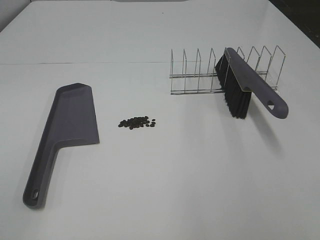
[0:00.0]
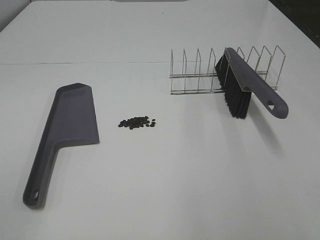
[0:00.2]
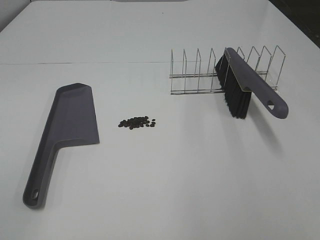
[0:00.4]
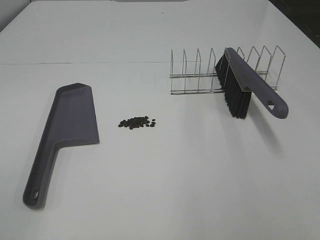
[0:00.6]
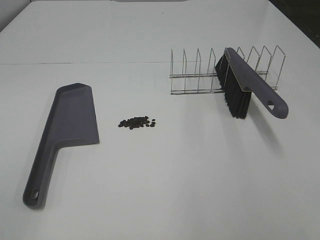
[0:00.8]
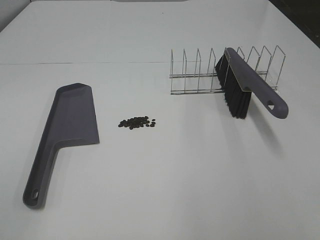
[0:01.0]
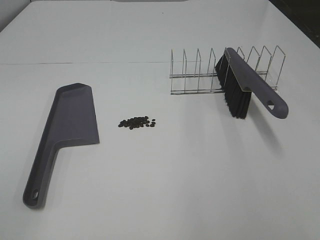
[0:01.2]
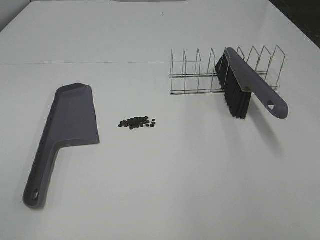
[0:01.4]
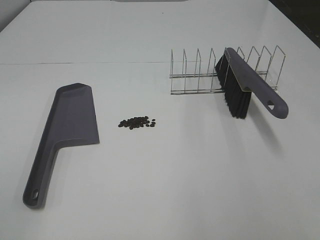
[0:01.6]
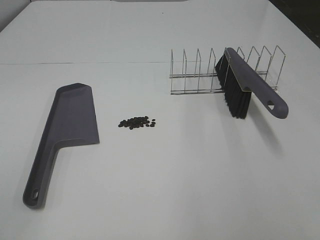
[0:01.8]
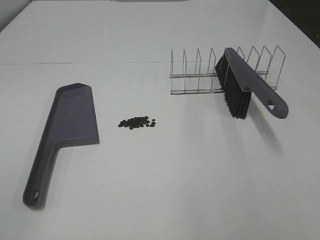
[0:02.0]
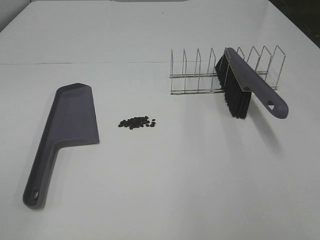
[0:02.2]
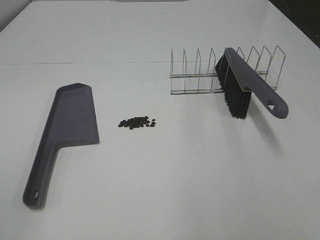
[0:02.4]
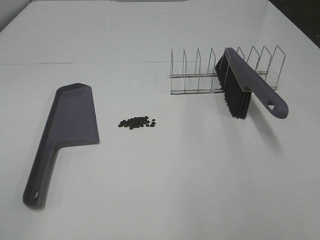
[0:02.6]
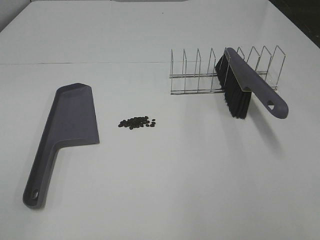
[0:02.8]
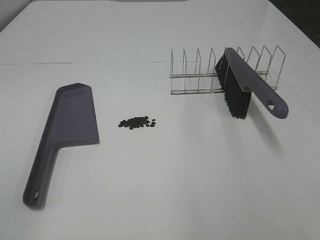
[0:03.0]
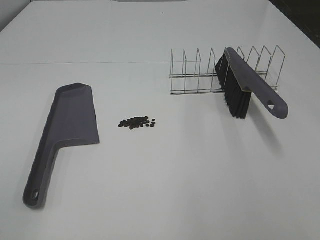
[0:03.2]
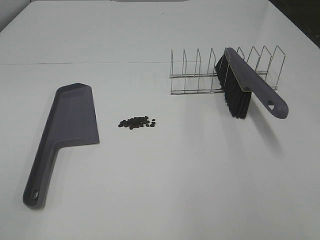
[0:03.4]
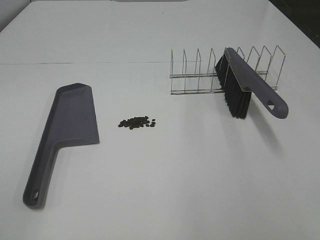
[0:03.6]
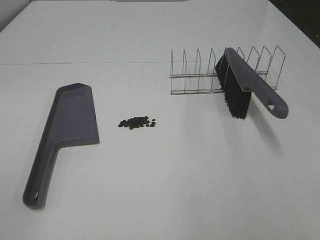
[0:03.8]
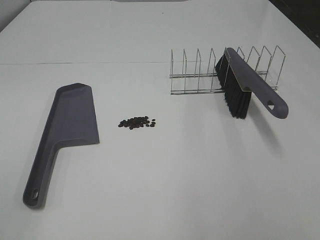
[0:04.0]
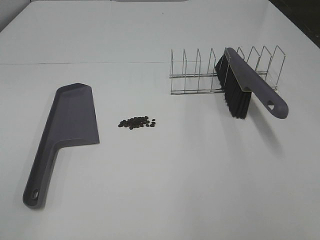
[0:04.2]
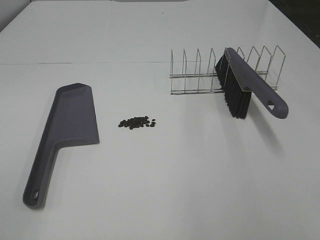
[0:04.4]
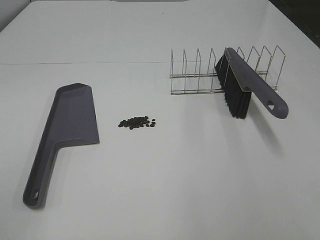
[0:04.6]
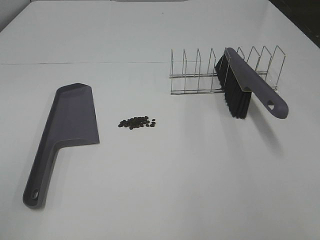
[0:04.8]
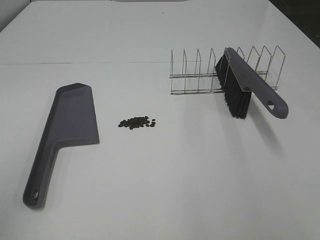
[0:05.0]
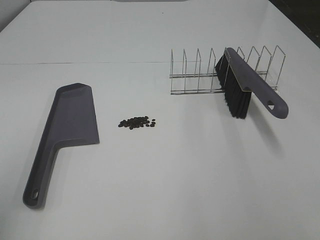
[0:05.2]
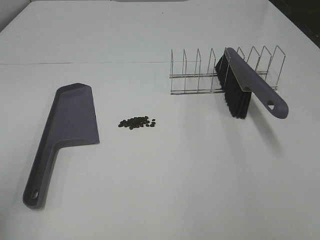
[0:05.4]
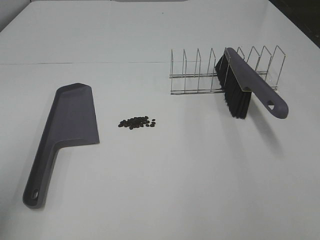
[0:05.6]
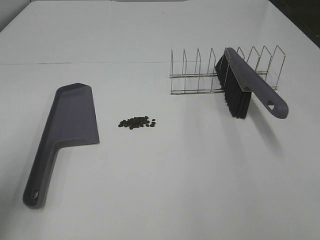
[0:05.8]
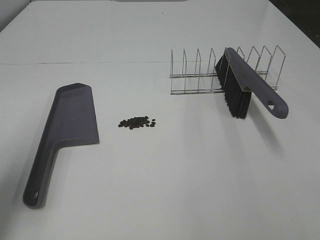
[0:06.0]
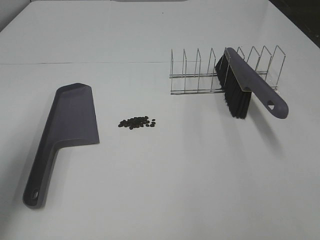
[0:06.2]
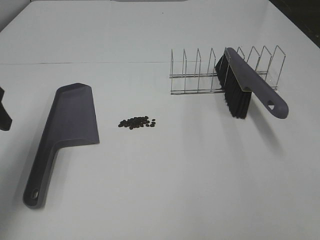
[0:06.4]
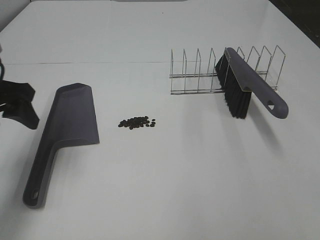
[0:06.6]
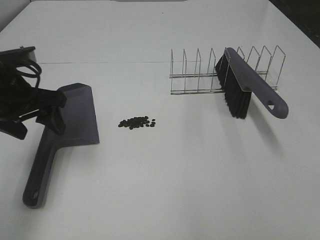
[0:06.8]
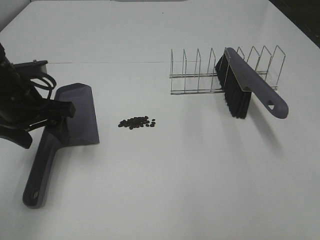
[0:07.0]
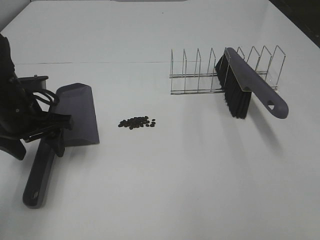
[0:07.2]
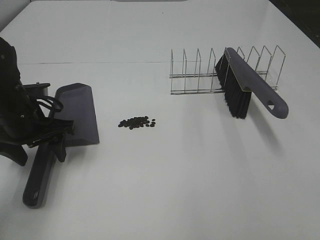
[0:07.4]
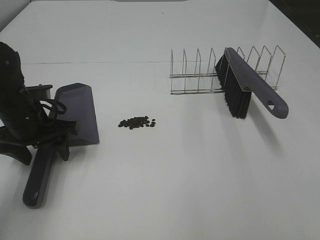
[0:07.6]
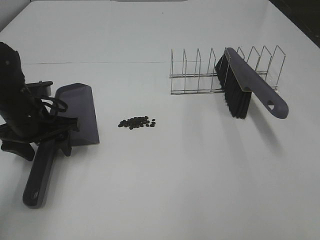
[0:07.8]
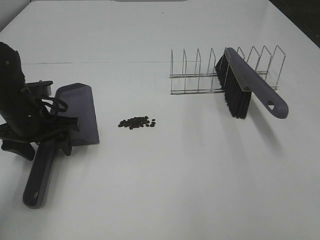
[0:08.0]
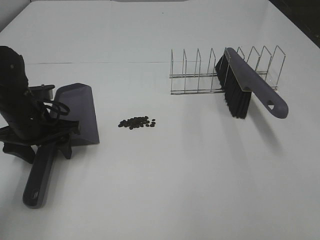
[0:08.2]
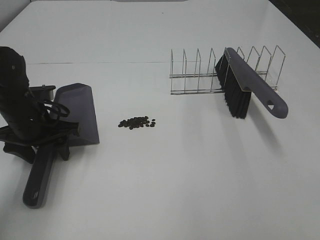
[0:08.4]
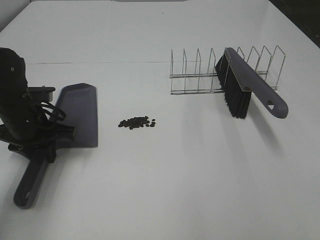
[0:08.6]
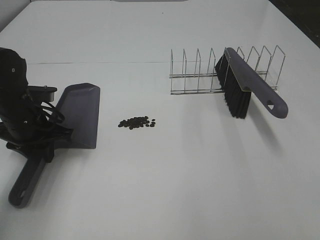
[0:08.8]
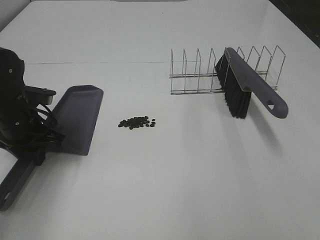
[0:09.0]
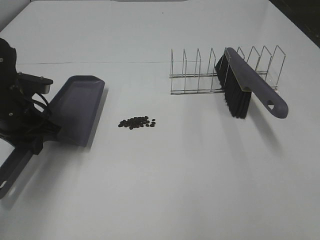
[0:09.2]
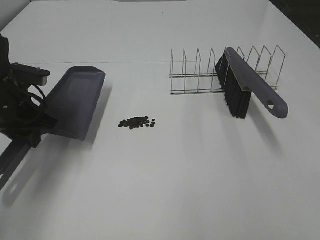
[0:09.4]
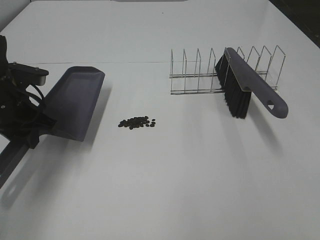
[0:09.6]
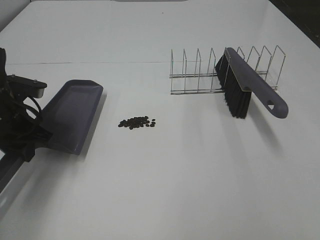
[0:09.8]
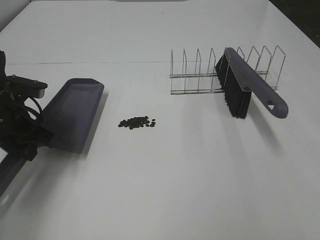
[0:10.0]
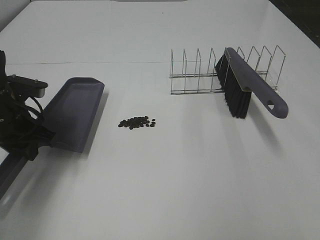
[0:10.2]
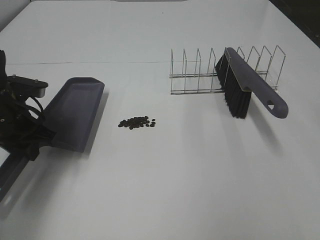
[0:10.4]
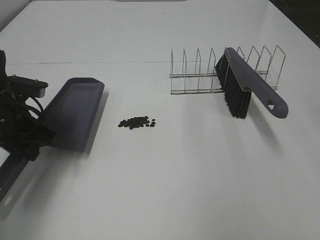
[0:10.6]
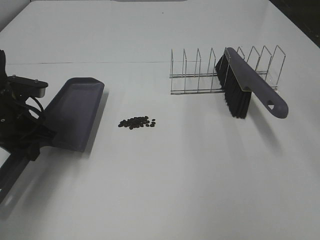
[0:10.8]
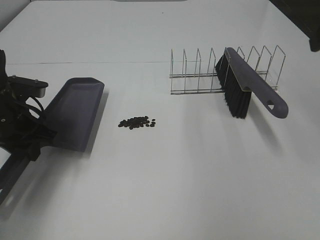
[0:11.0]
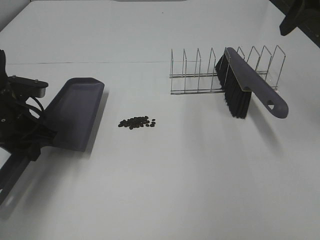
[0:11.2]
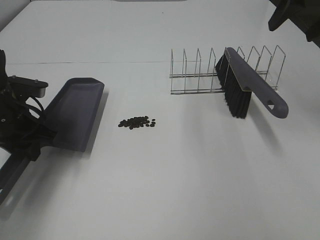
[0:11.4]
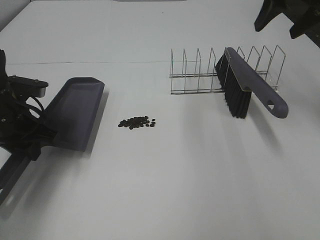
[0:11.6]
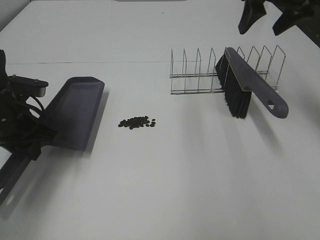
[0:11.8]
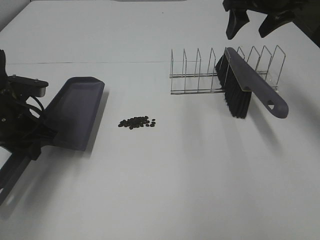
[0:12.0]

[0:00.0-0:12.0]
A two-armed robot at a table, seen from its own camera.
Task of the whole recording: Sweep Coffee Bean.
Step, 0:00.0 to 0:08.8: Left hand: grab the dustpan.
0:00.0 to 0:04.4: Both grippers stay about where they are.
0:04.4 to 0:06.0: The left gripper goes about 20 cm forward.
0:06.0 to 0:07.6: The left gripper heads downward, forward and to the right, covering approximately 20 cm.
0:07.6 to 0:09.0: The left gripper closes.
0:10.4 to 0:12.0: The right gripper heads forward, covering about 30 cm.

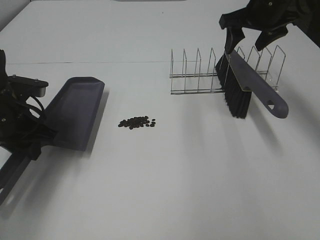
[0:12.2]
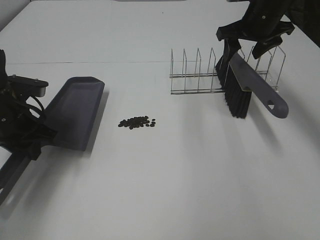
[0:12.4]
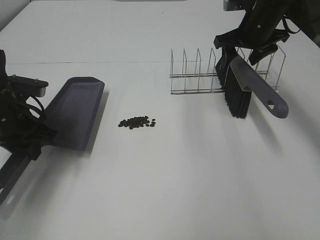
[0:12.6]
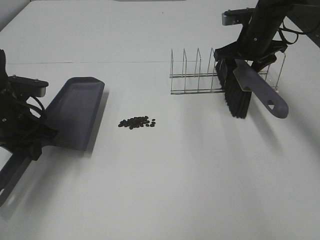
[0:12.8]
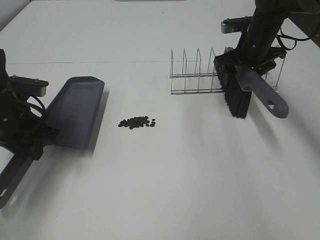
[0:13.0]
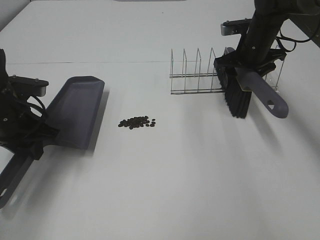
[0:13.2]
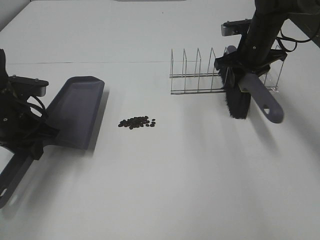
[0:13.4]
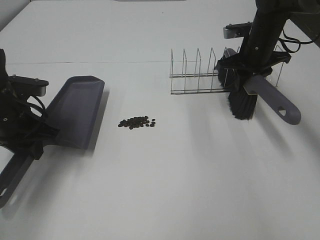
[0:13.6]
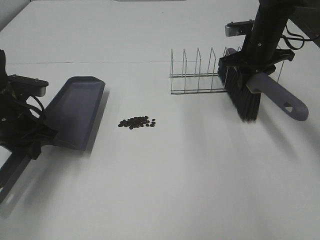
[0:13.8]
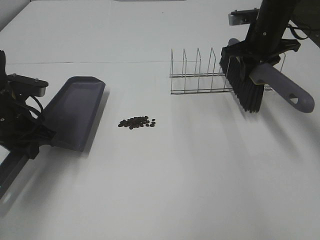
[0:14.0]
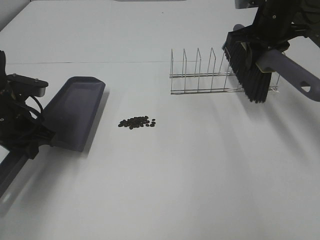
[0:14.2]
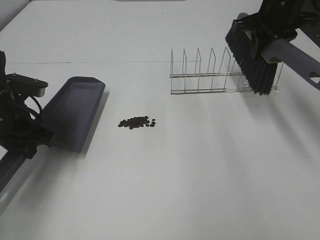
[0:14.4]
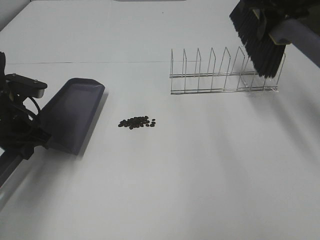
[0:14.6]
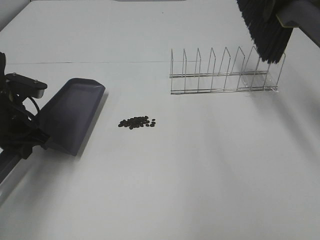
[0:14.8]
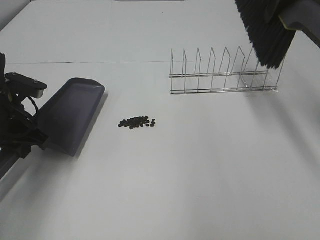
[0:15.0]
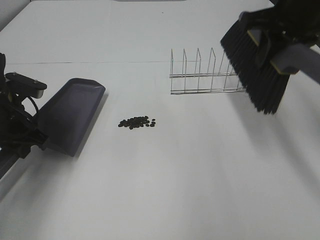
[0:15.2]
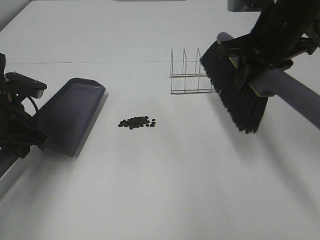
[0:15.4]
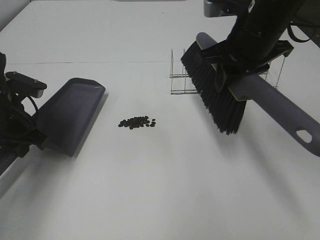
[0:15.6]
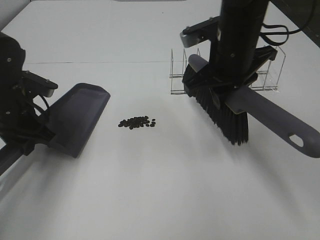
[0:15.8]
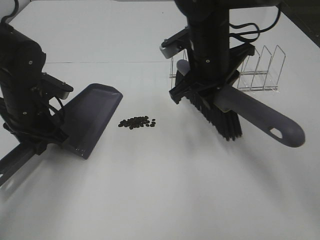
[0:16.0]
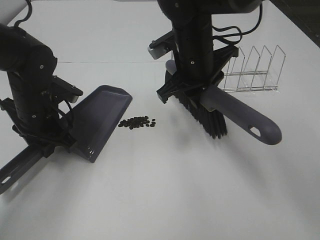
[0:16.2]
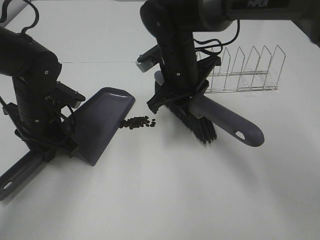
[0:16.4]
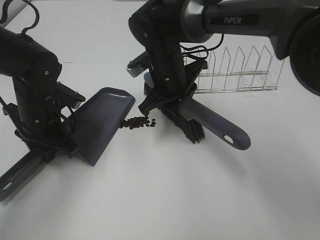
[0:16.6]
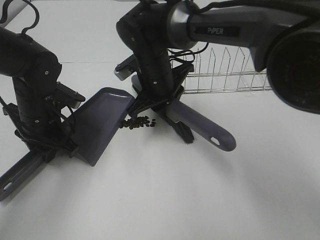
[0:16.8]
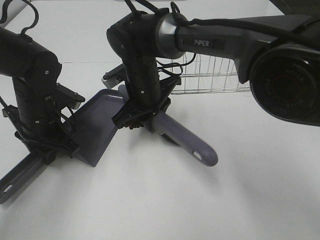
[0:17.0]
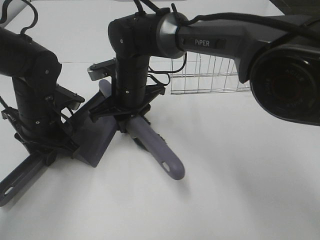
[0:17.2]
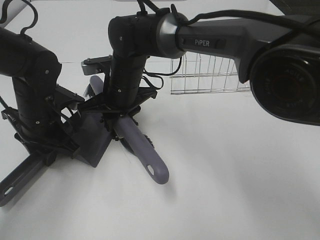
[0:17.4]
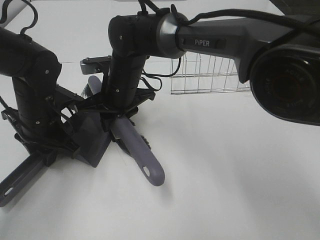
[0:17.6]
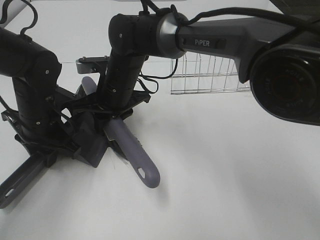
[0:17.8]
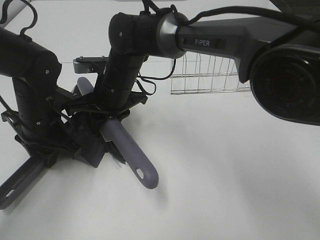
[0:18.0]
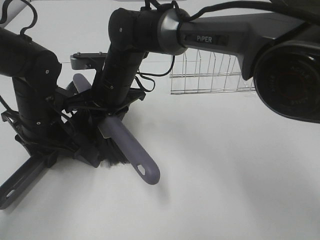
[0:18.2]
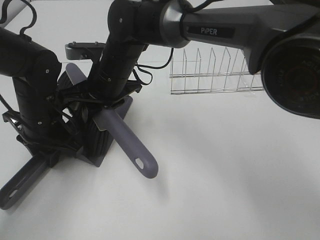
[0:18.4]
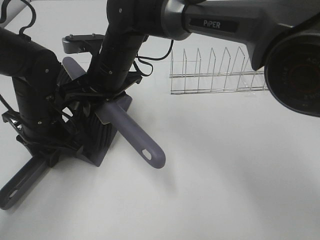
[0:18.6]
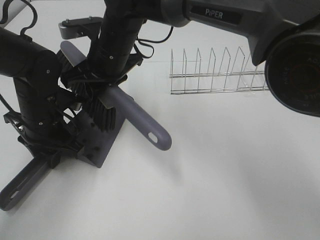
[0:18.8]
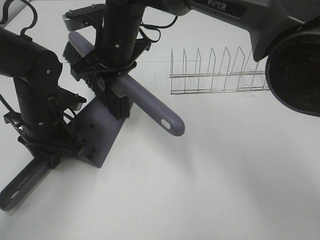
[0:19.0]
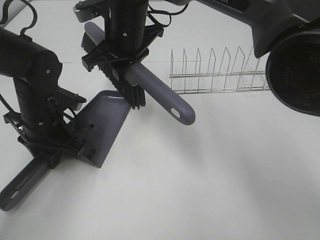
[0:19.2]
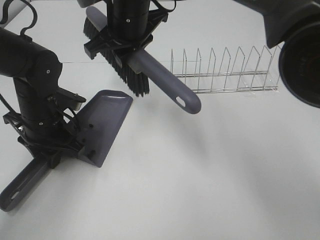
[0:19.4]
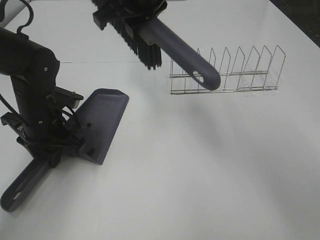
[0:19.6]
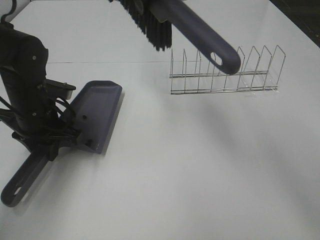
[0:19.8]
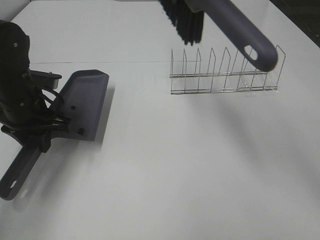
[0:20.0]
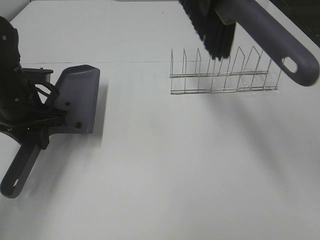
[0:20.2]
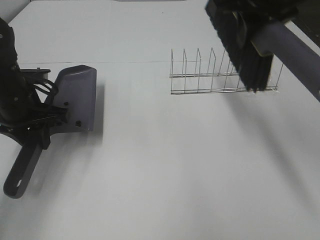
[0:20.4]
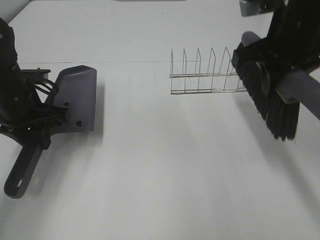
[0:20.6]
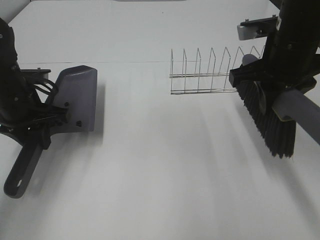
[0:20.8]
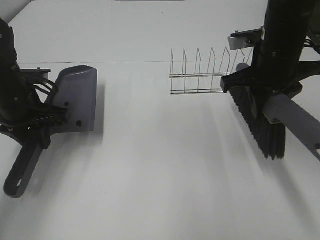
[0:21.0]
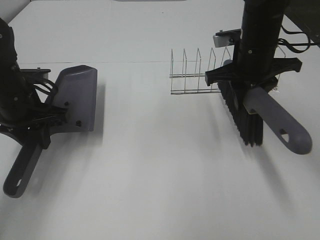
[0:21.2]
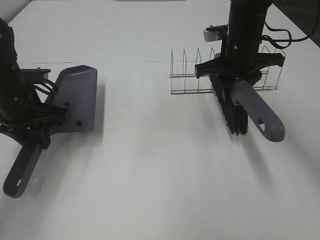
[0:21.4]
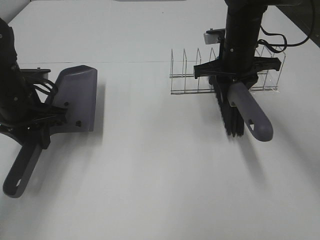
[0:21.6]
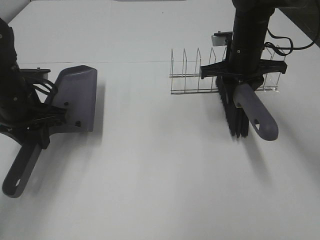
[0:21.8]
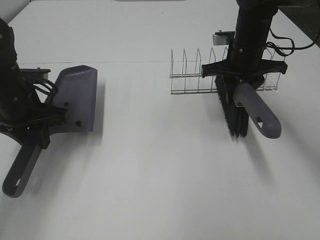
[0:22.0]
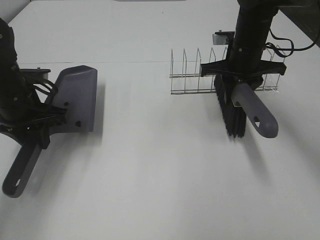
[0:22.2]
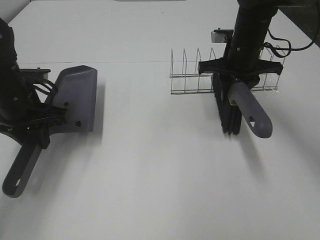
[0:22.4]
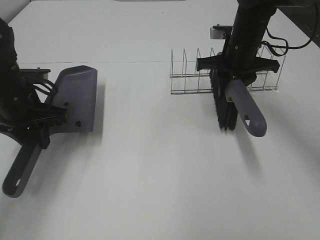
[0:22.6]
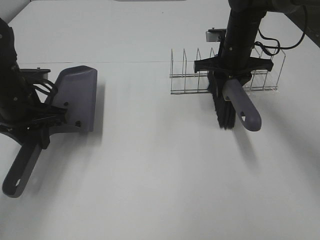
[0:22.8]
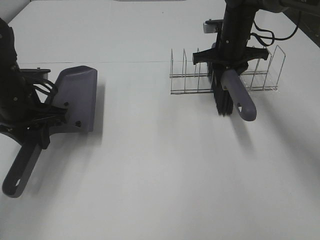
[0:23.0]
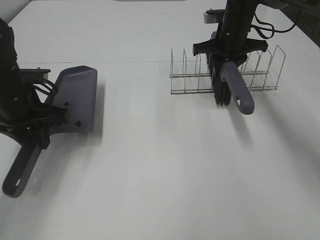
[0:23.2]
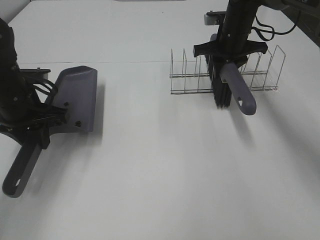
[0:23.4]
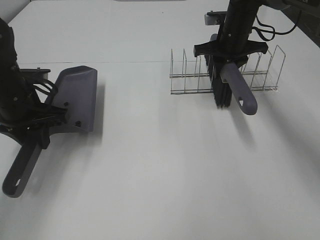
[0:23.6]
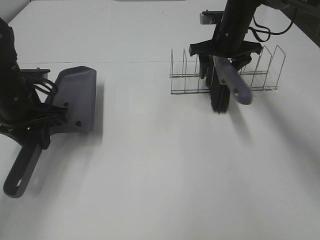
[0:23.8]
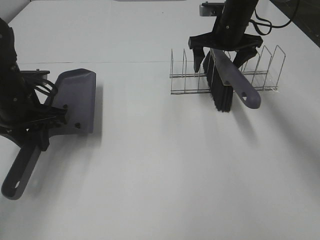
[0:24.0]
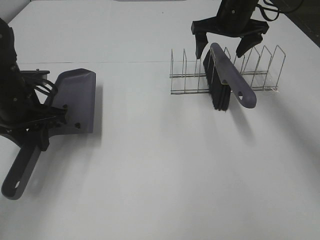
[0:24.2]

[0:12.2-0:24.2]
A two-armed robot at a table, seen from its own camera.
Task of the whole recording: Sweep Coffee Bean.
Step, 0:13.6 to 0:19.0: Right hand:sweep the coffee beans into the dustpan.
Step, 0:19.2 to 0:24.0: Right hand:place the broom on the rack.
0:12.2 to 0:13.8: The right gripper shifts about 5 cm downward, and closes its fingers.
0:13.8 to 0:15.2: The right gripper shifts about 15 cm upward and backward.
0:15.2 to 0:16.6: The left gripper is displaced to the right by some 5 cm. Meanwhile the right gripper travels to the left and downward by roughly 25 cm.
0:16.6 to 0:18.2: The right gripper is displaced to the left by approximately 10 cm.
0:18.2 to 0:19.8: The right gripper shifts approximately 20 cm upward.
0:19.8 to 0:21.2: The right gripper shifts roughly 20 cm downward and to the right.
0:21.2 to 0:22.6: The right gripper goes about 5 cm forward.
0:22.6 to 0:24.2: The right gripper moves forward, some 5 cm, and opens up.
